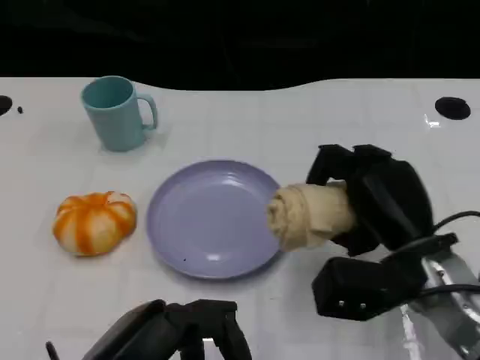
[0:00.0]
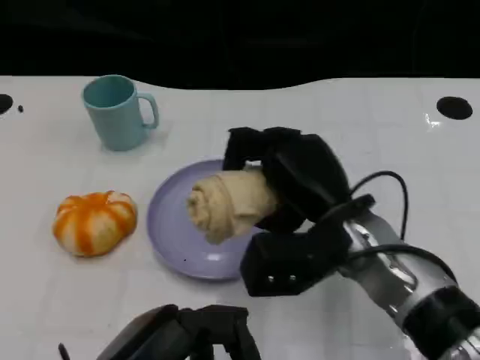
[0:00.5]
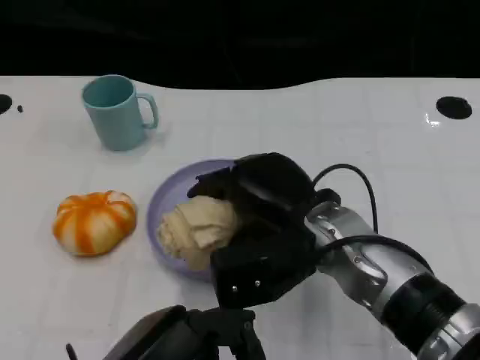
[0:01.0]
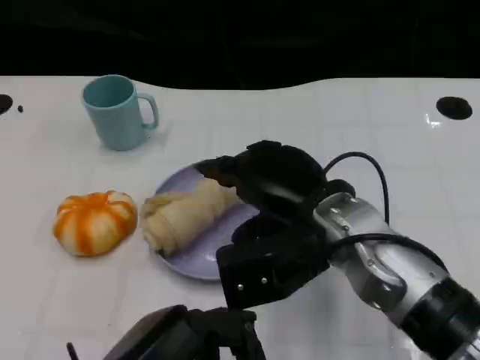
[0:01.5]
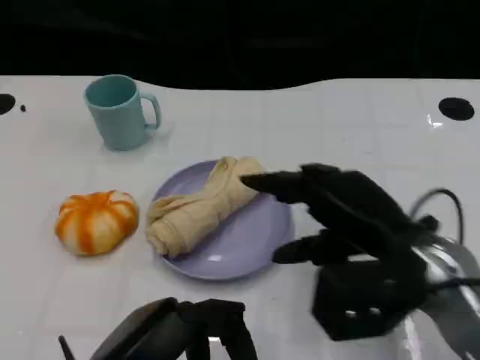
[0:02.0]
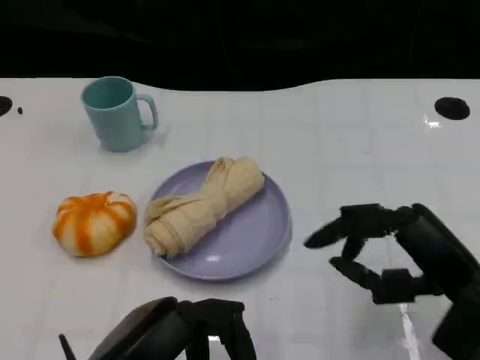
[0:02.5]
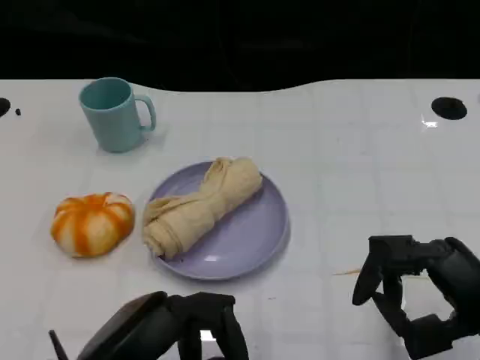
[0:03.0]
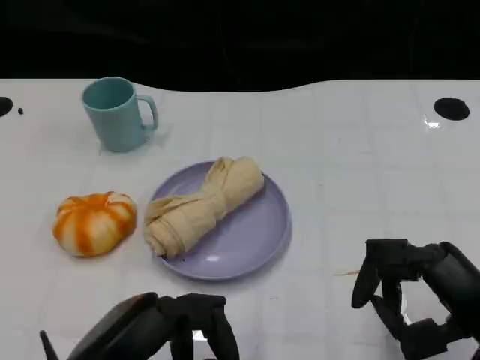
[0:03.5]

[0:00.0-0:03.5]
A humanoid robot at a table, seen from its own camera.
Task of the whole recording: Grasp the towel on the left side of the plate with the left hand and place it into the plate.
0:00.0 to 0:02.0: The right hand reaches some 10 cm to the left, then returns.
0:02.0 to 0:03.5: The right hand shifts about 10 cm to the right and backward.

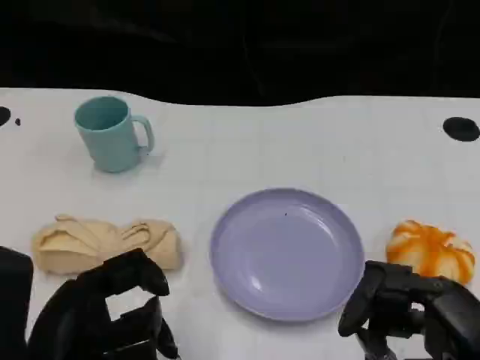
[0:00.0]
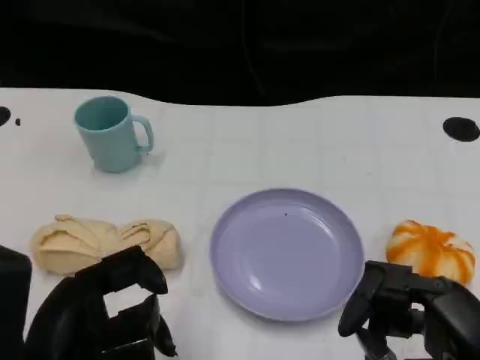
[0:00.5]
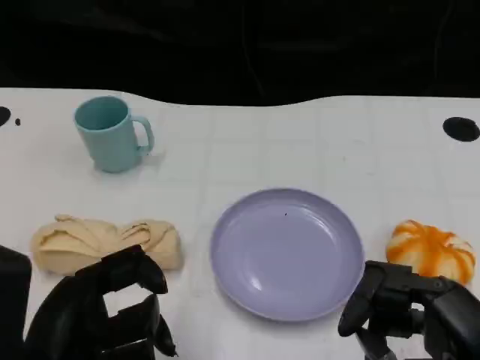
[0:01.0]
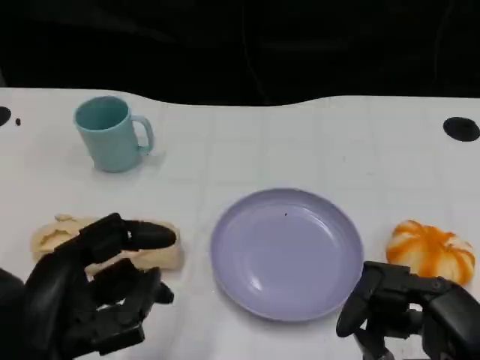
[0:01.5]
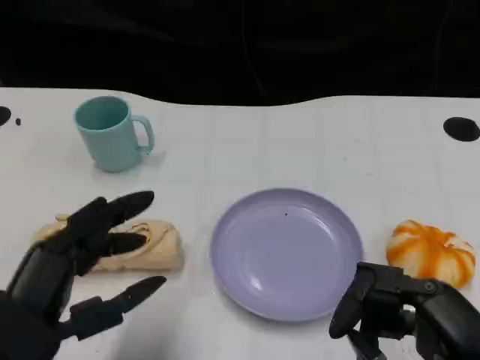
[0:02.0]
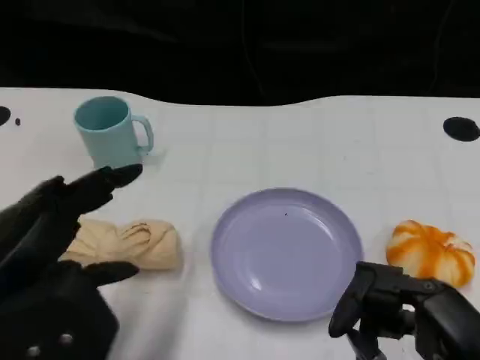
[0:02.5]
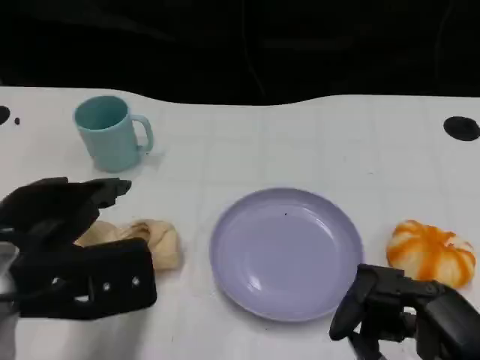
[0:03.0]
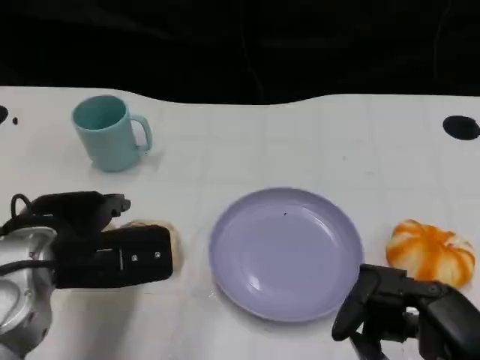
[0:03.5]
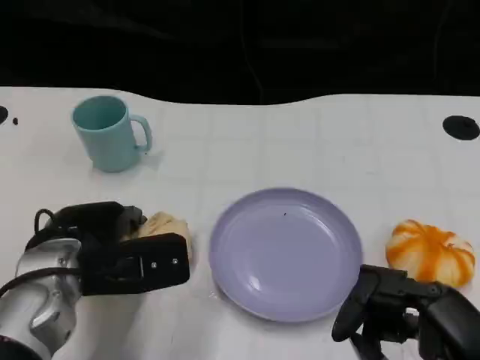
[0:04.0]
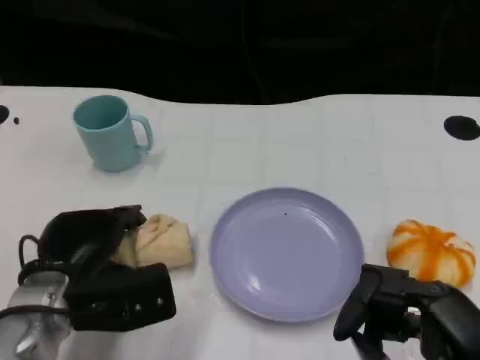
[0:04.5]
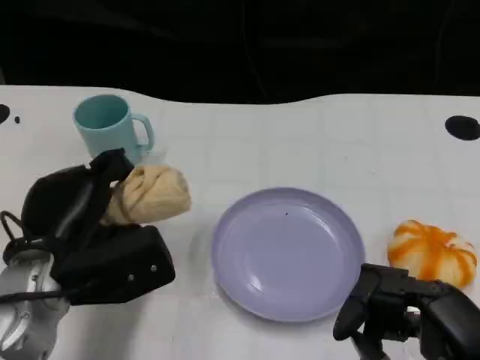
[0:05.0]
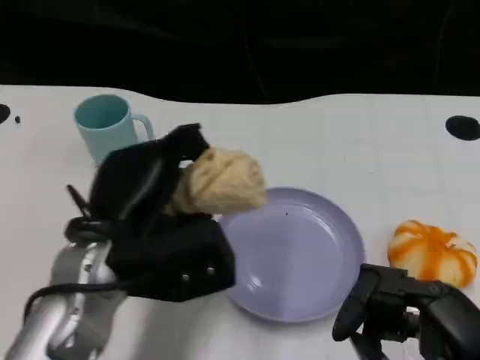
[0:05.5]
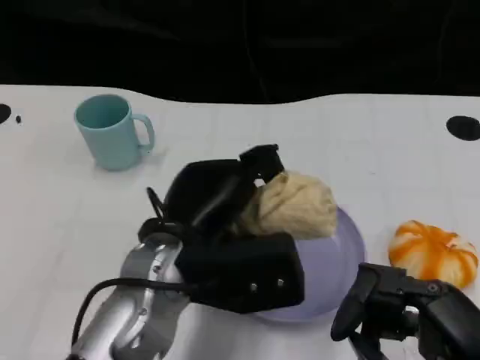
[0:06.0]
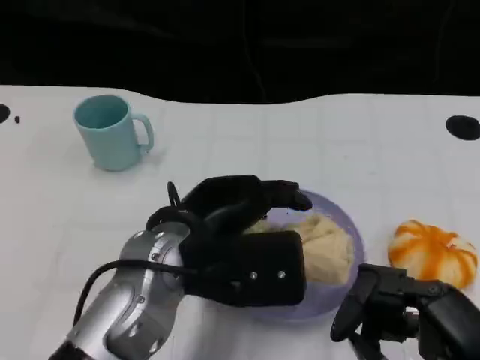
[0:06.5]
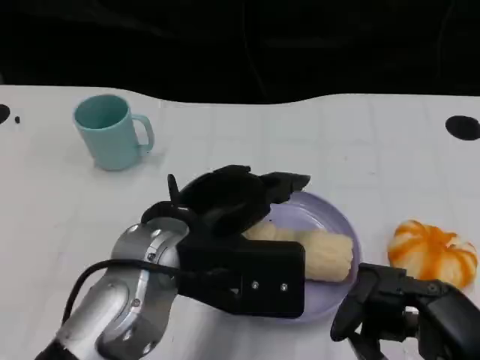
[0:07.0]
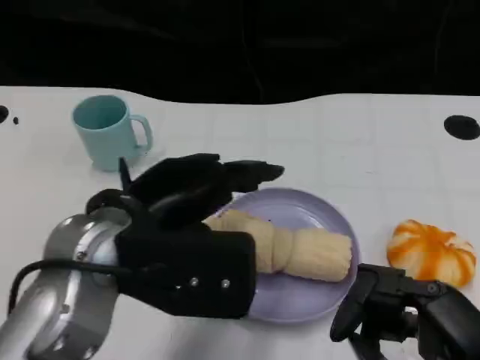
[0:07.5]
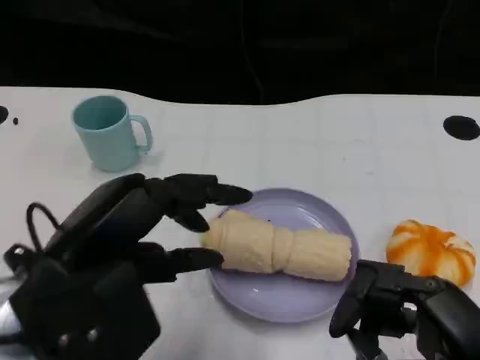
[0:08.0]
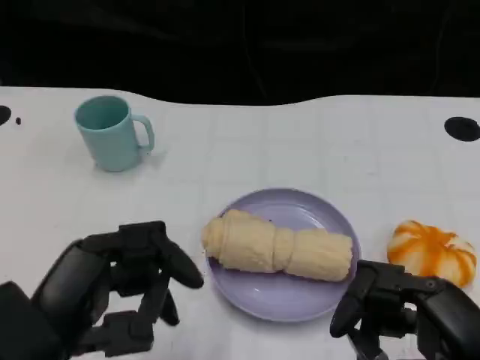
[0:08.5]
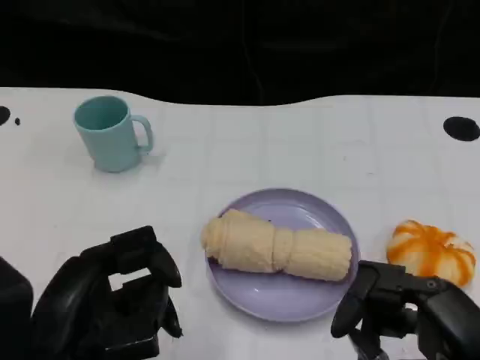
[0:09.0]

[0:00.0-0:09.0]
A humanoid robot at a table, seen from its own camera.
Task of the whole recording: Grasp the towel on the left side of the plate with the left hand and place it into the plate.
0:02.0 to 0:04.5: The left hand goes approximately 15 cm forward and downward.
0:04.5 to 0:07.0: The left hand is displaced upward and to the right by about 15 cm.
0:07.0 to 0:09.0: The left hand heads backward and to the left, covering about 15 cm.
